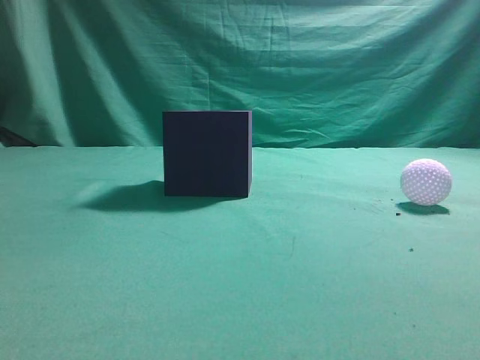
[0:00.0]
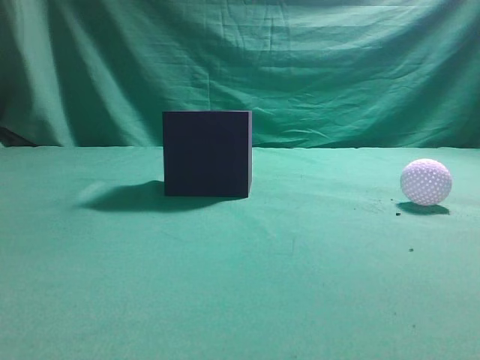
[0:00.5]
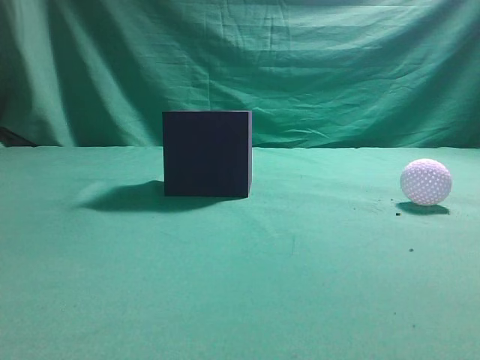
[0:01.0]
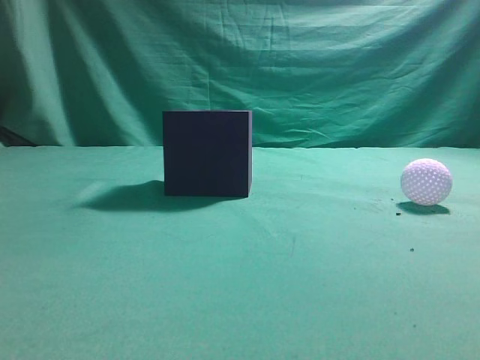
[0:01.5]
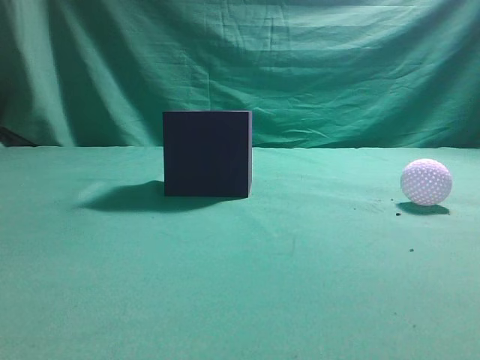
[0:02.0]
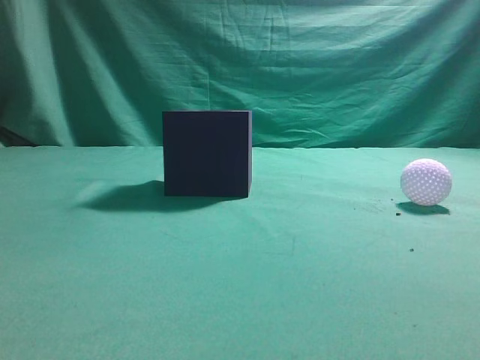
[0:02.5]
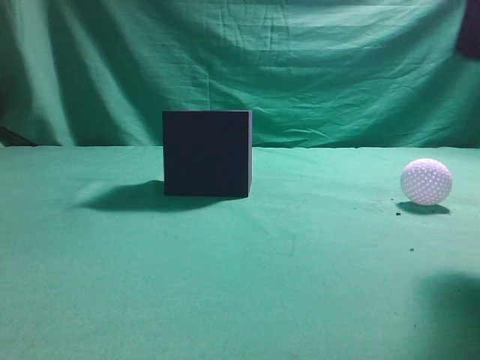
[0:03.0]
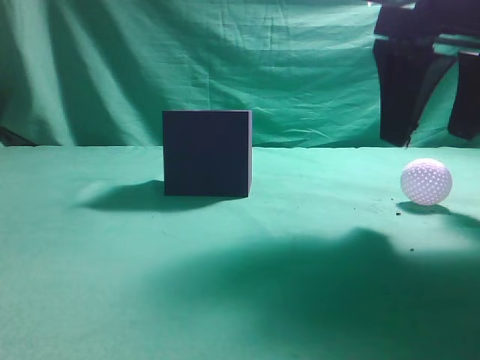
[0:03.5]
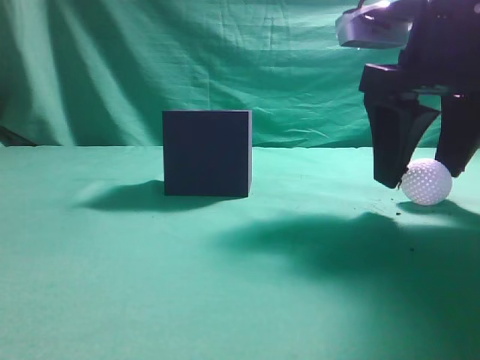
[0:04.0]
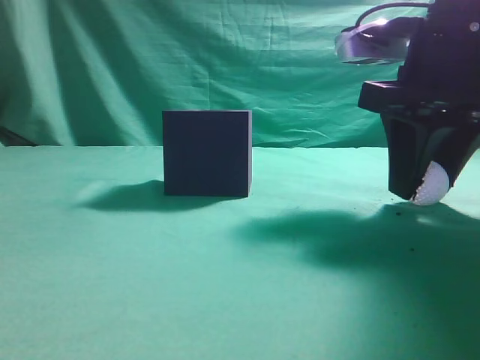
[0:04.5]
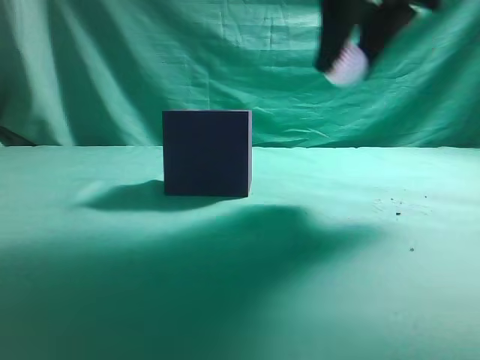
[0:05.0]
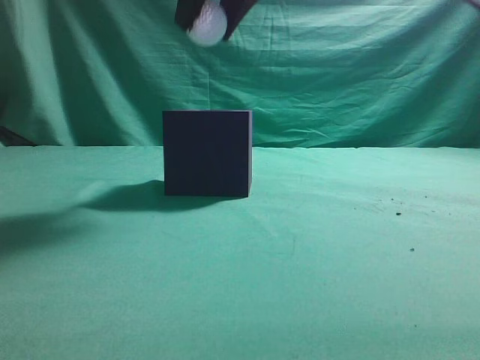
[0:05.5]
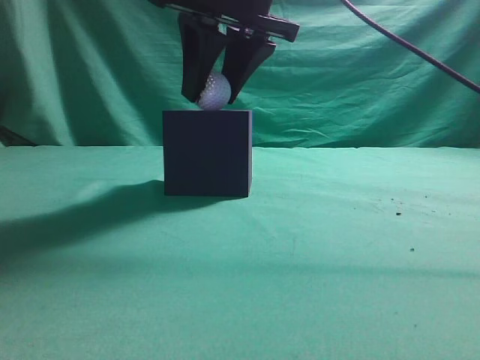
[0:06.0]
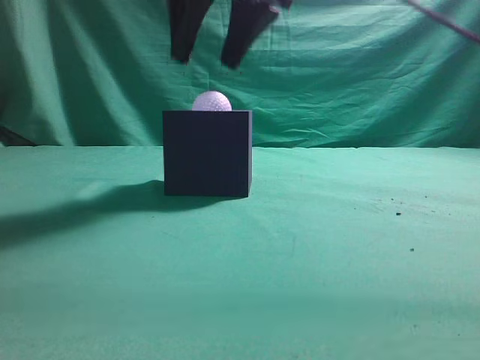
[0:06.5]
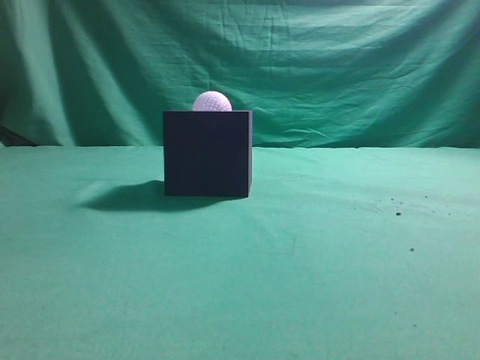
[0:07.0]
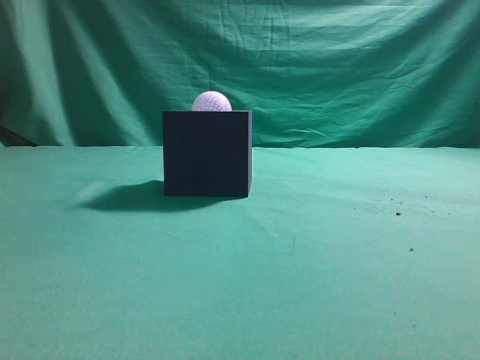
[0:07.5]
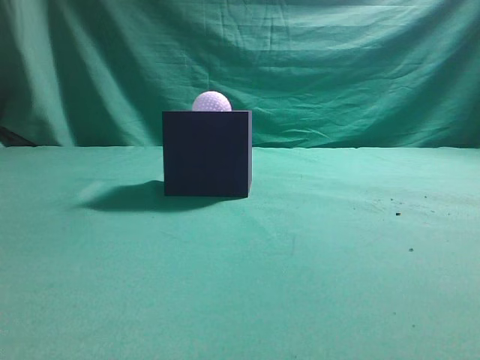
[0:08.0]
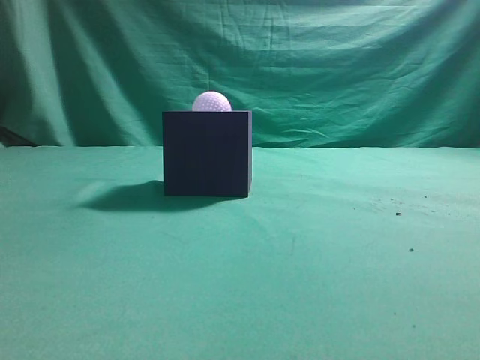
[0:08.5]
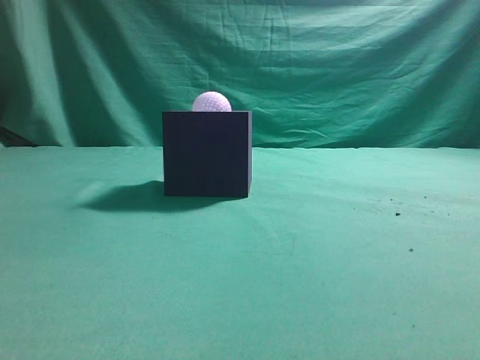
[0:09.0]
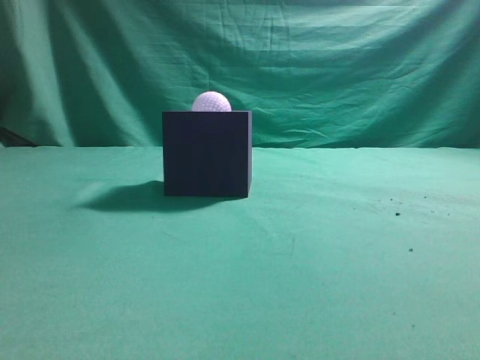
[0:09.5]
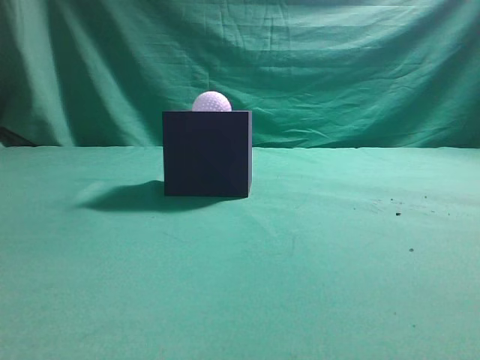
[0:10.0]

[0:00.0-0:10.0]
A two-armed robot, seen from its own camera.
Task of the whole recording: Pick up the ball and place it in the circular groove above the cube.
Step, 0:00.0 to 0:04.5: Grasp the sphere on the table.
Step, 0:05.0 to 0:06.5: Place the sphere into the sphere-shaped recess.
0:02.0 to 0:04.0: The right gripper heads forward and to the left, covering roughly 25 cm, and opens up.
0:04.0 to 0:06.0: The right gripper moves to the left and upward, approximately 15 cm, and closes.
0:06.0 to 0:08.0: The right gripper shifts some 30 cm backward, to the right and upward, and closes up.
